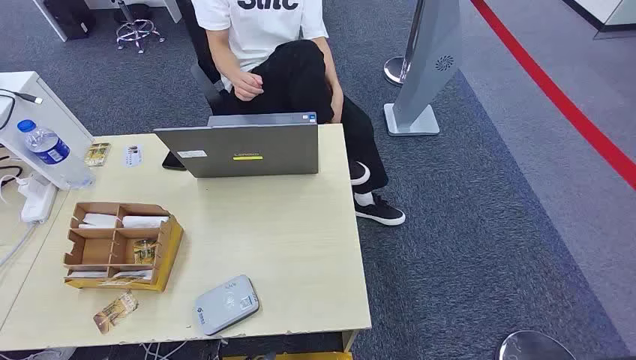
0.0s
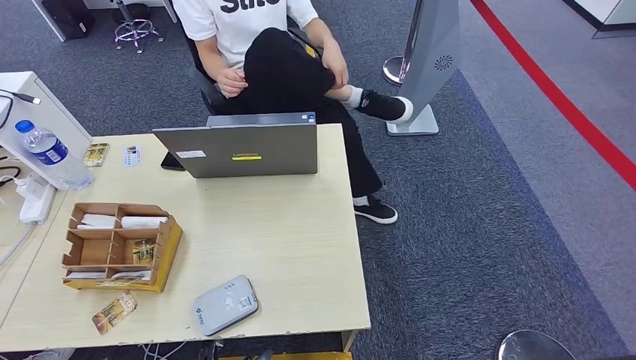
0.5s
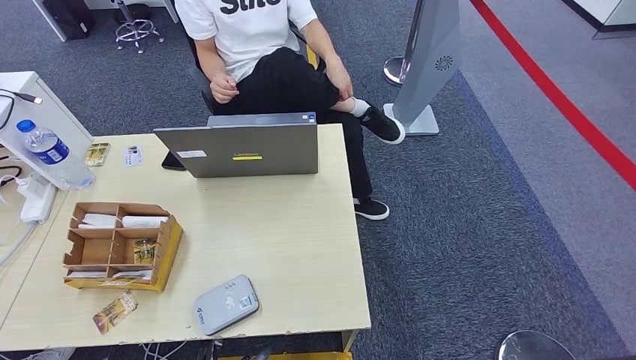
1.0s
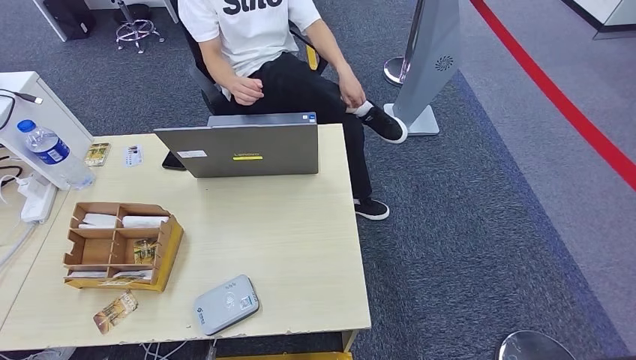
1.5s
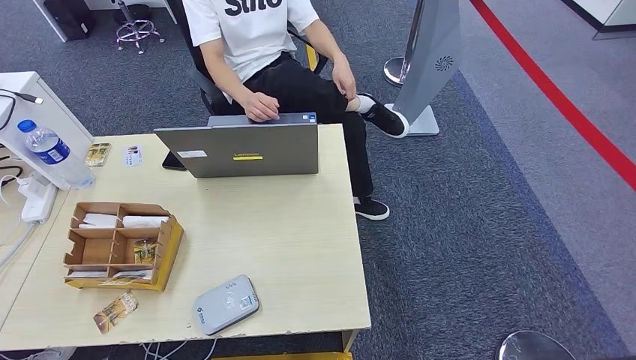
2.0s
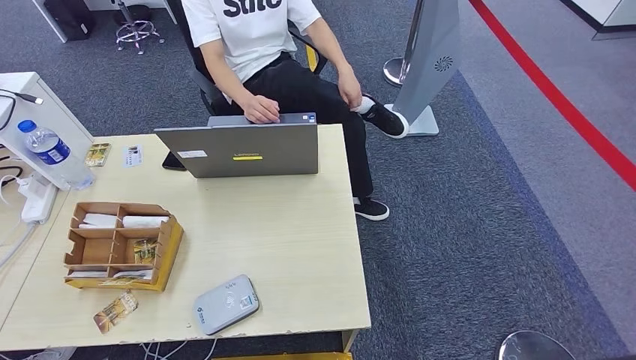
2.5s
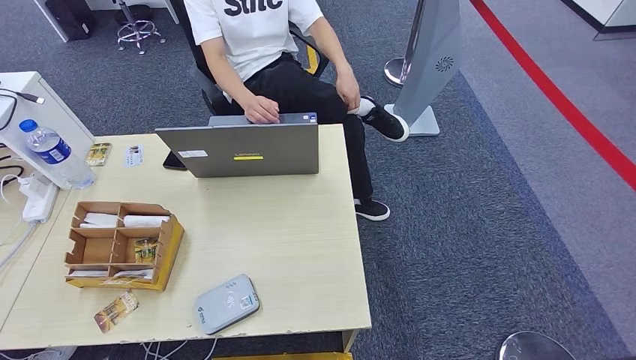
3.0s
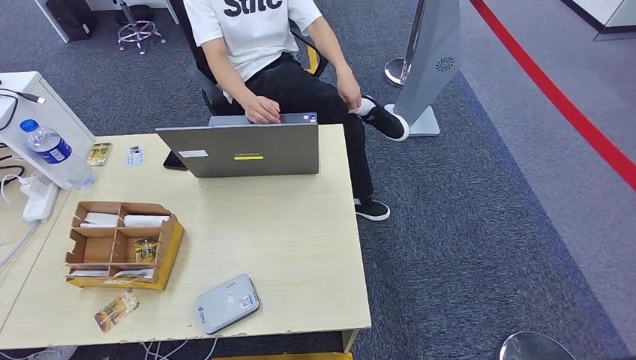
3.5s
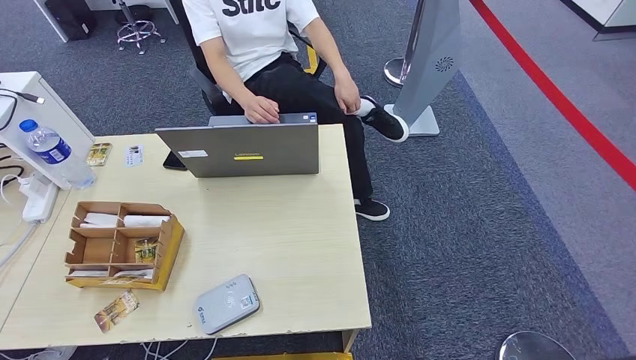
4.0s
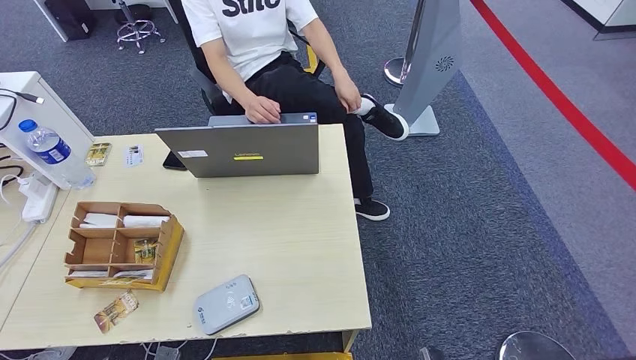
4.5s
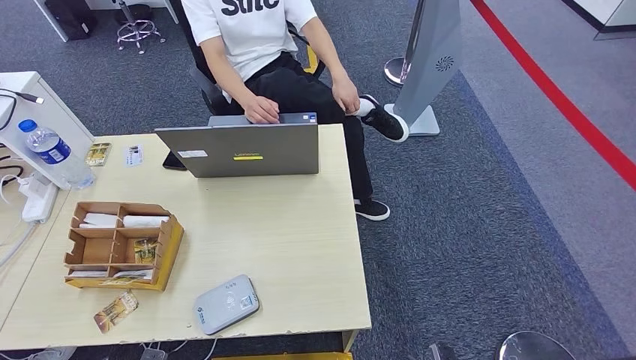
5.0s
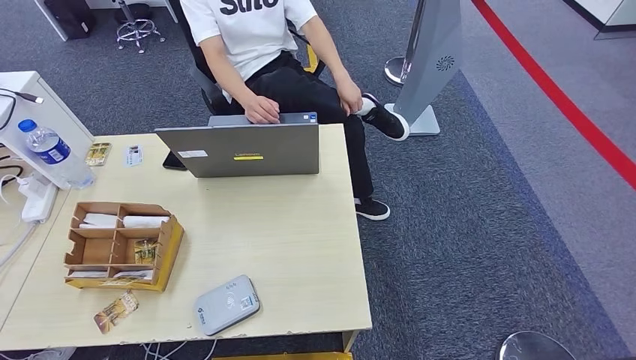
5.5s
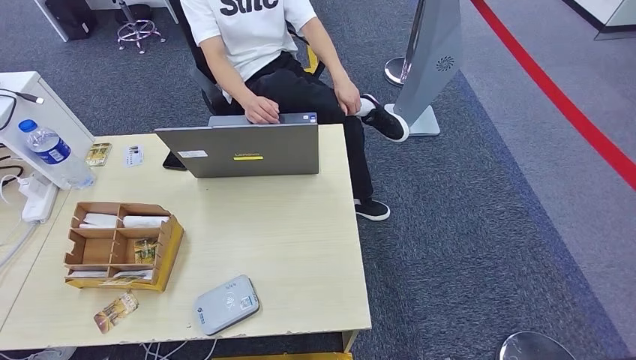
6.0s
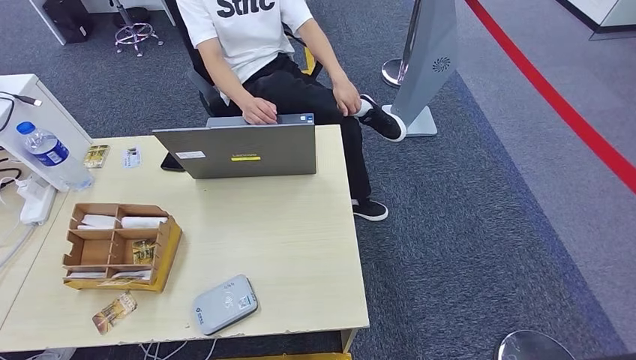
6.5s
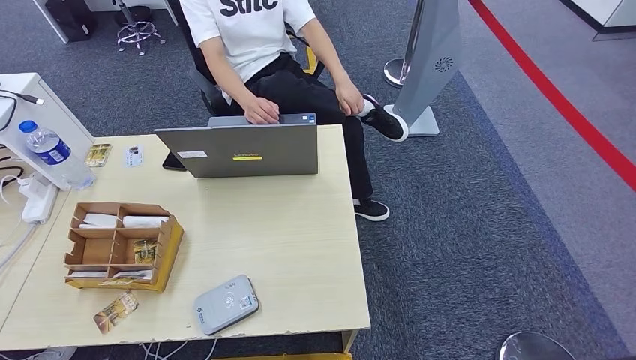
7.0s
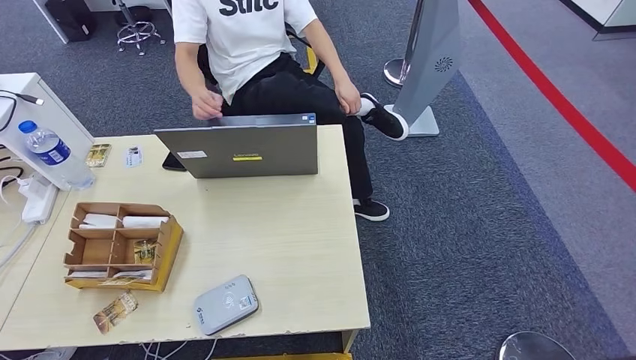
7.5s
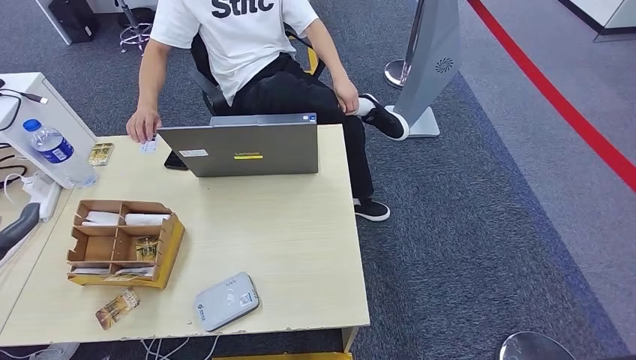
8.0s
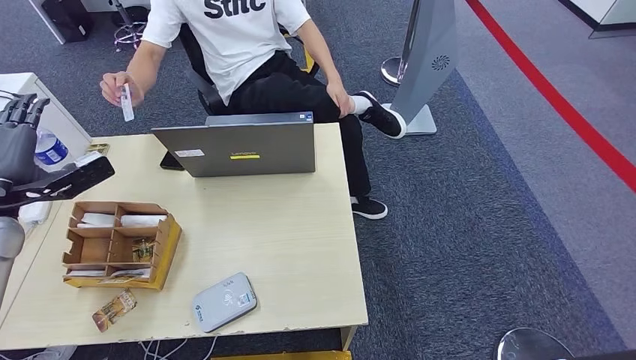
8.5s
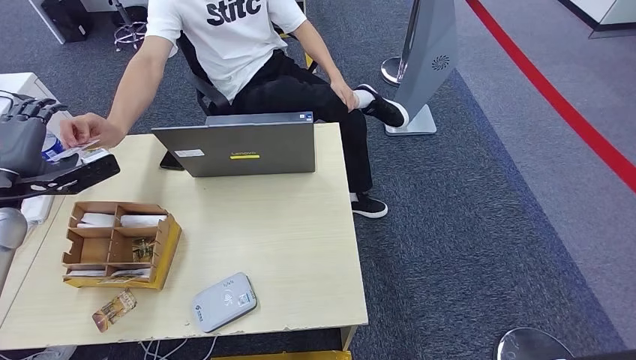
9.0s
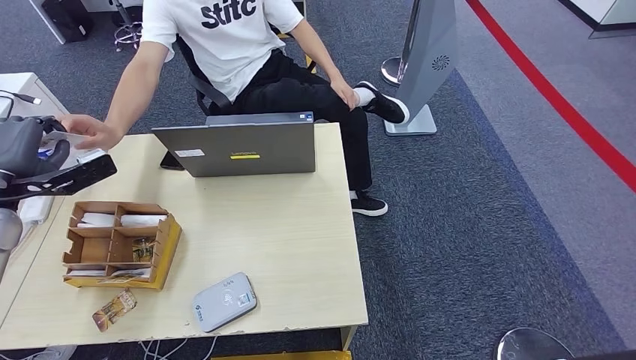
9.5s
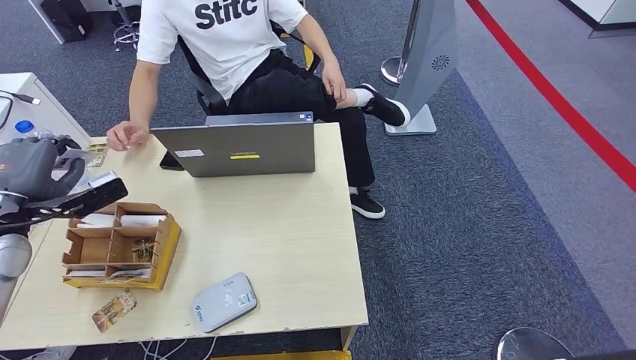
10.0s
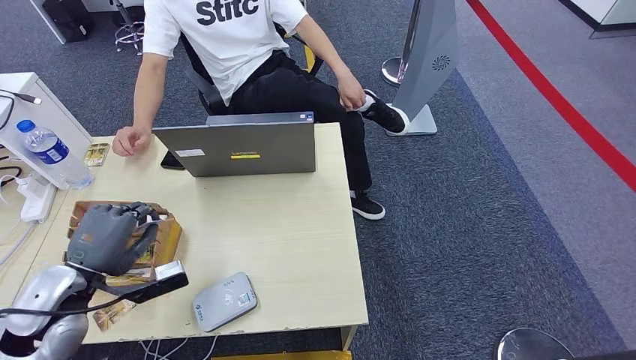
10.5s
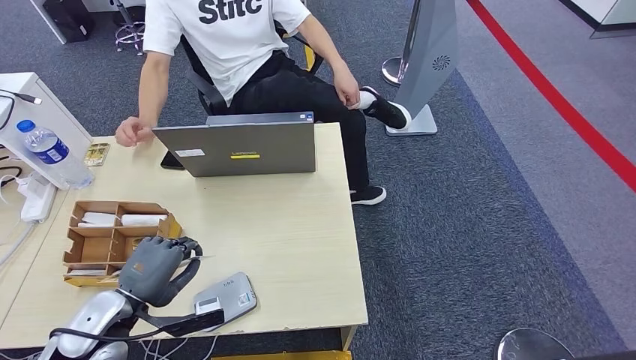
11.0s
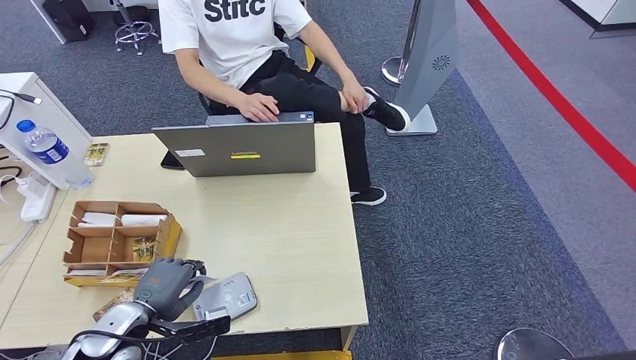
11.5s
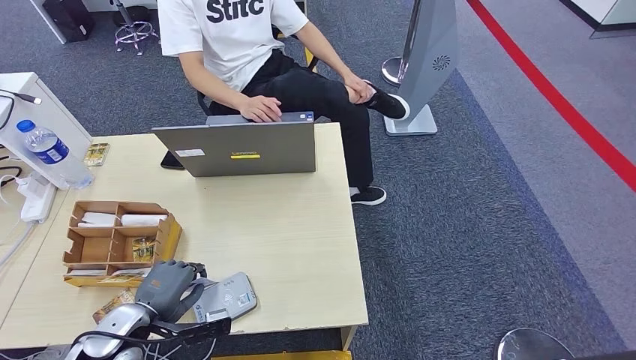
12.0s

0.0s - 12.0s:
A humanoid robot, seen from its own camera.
Step, 0.0s - 9.5s: Take the ID card from the person's hand.
Step, 10.0s - 11.5s: Place the ID card on the card reader.
4.0s - 6.0s: The left hand is displaced to the left by roughly 5 cm. Meanwhile the right hand heads upward, covering some 10 cm.
6.0s - 8.0s: The left hand shifts roughly 40 cm upward and forward, while the right hand goes about 10 cm downward.
8.0s - 10.0s: The left hand moves forward, some 10 cm.
10.0s - 12.0s: The left hand goes roughly 25 cm downward, to the right and backward.

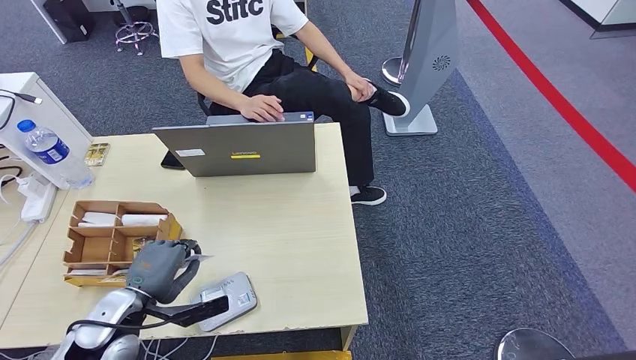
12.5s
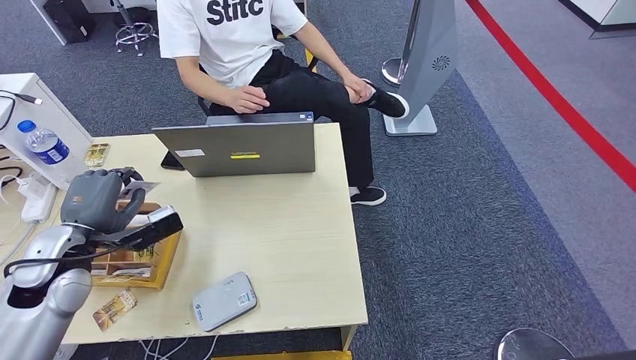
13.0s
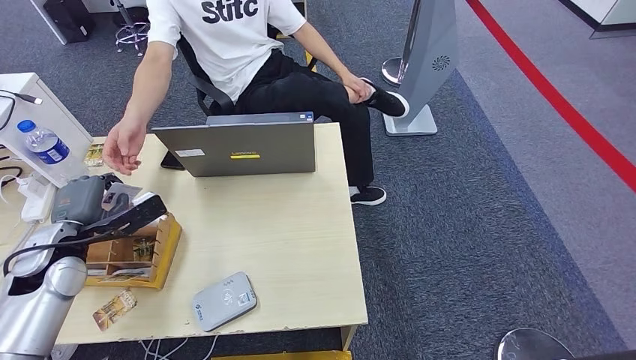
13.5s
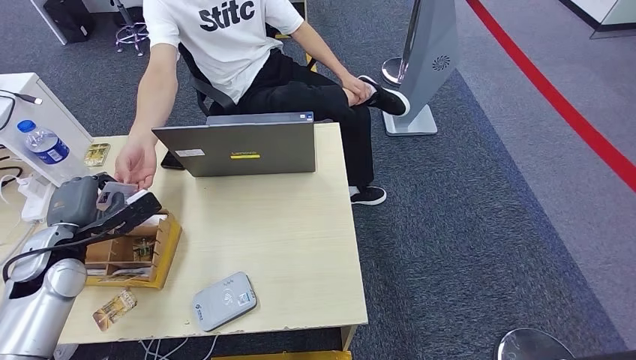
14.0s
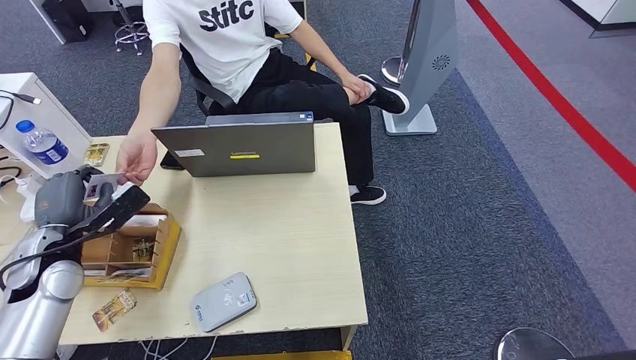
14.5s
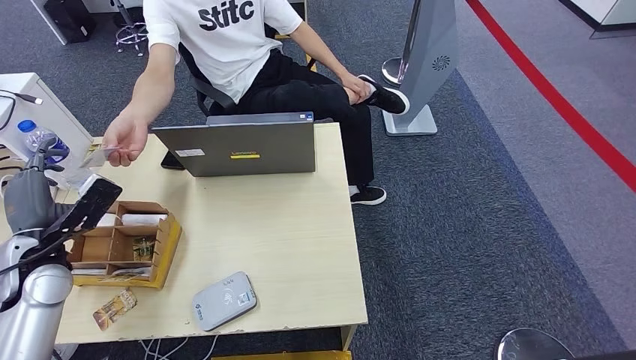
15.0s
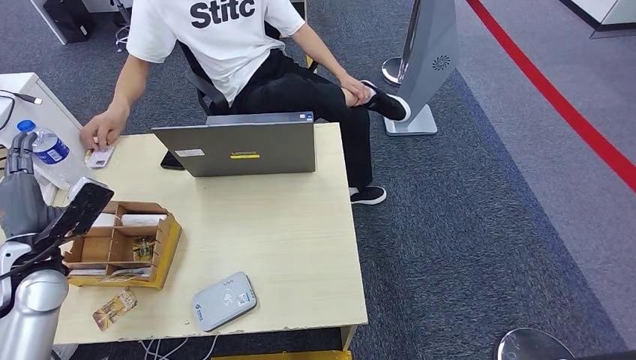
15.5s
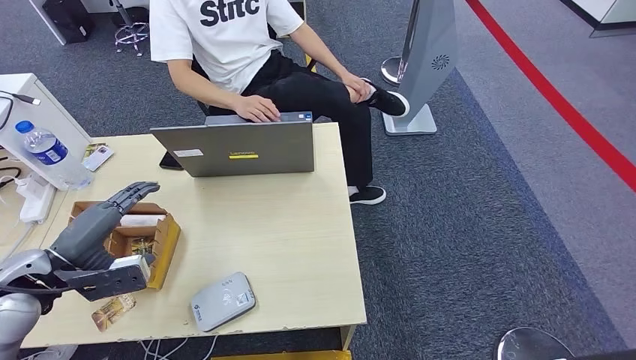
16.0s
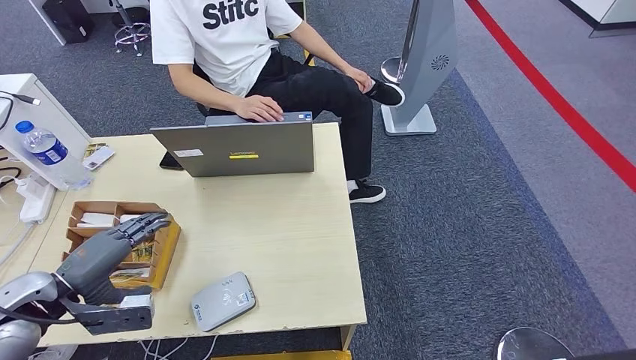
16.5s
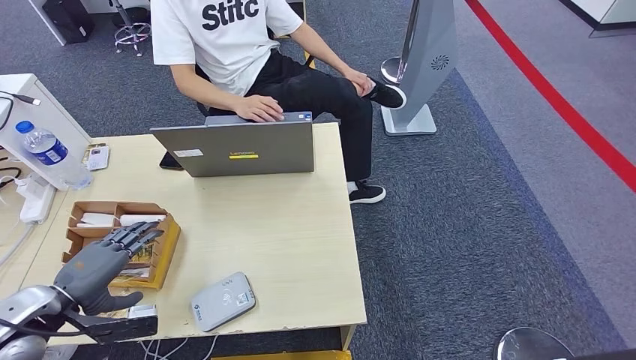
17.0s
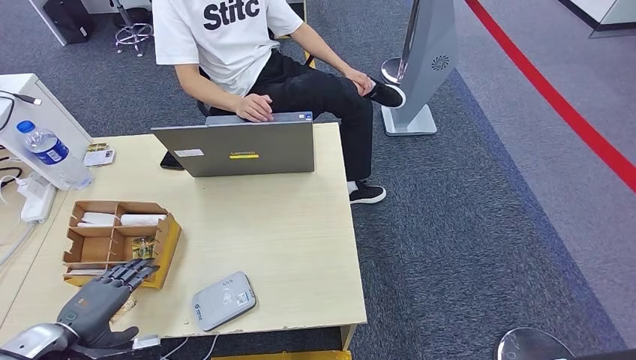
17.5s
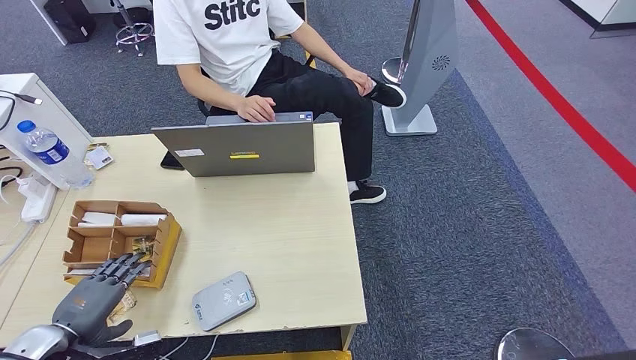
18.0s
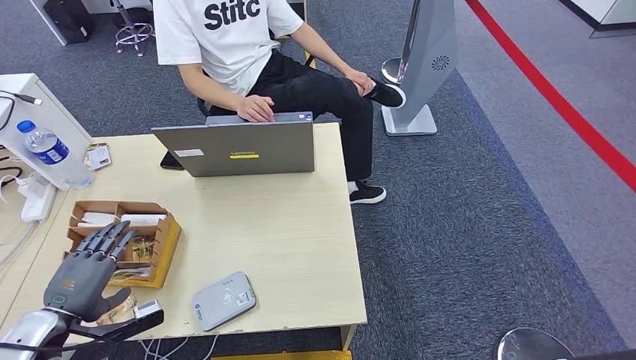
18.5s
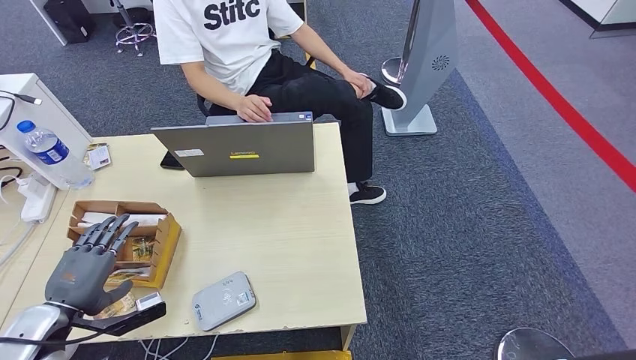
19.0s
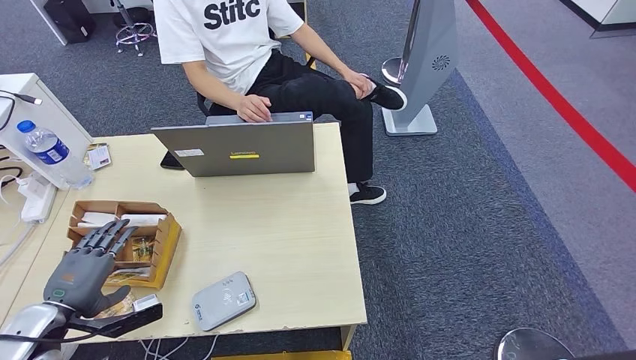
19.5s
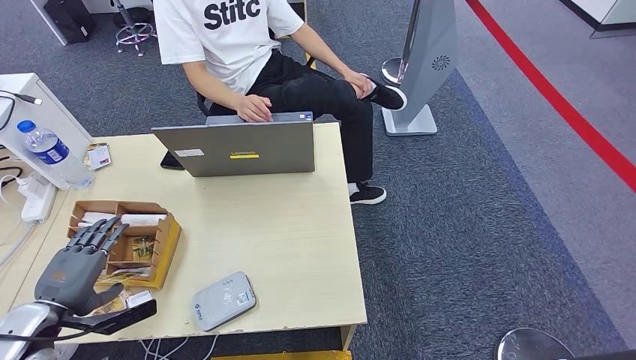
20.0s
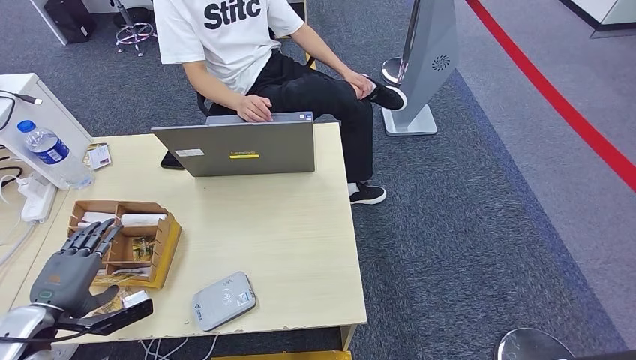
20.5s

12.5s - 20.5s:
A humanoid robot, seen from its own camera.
Step, 12.5s - 15.0s: Hand the ID card to the person.
12.5s - 14.5s: The left hand heads to the left, forward and upward, covering roughly 15 cm.
14.5s - 16.5s: The left hand shifts some 10 cm backward.
16.5s - 18.5s: The left hand shifts some 5 cm downward.
18.5s - 20.5s: The hands make only small movements.
